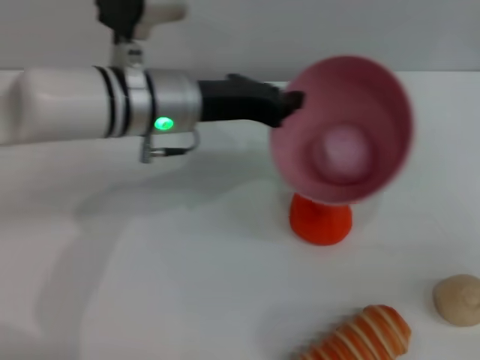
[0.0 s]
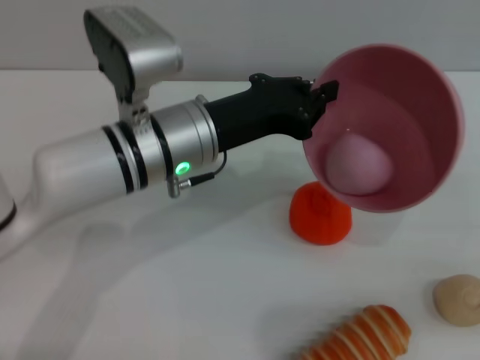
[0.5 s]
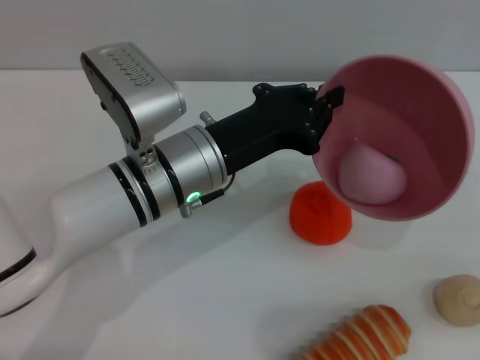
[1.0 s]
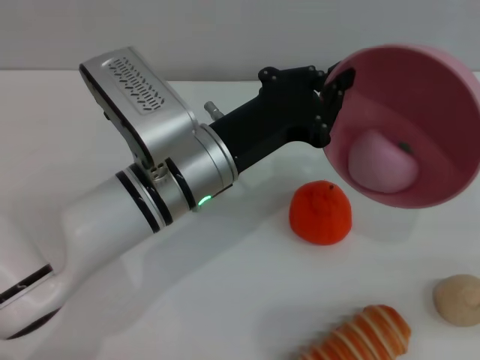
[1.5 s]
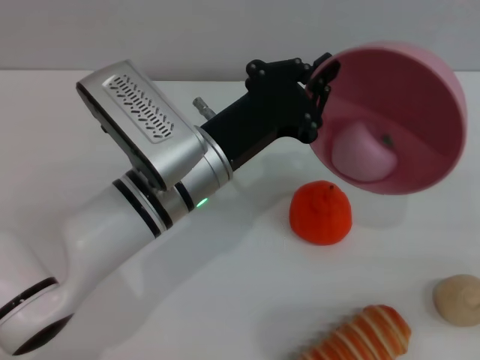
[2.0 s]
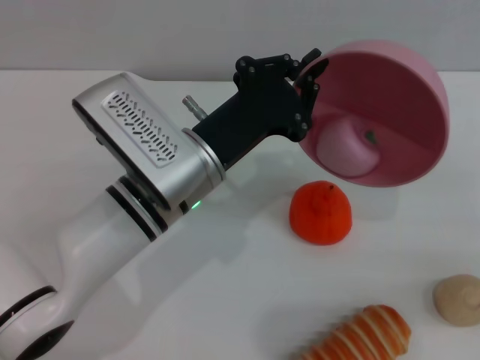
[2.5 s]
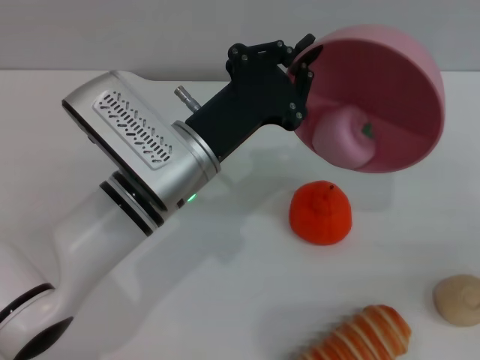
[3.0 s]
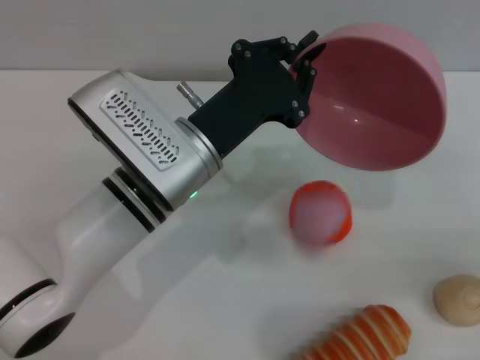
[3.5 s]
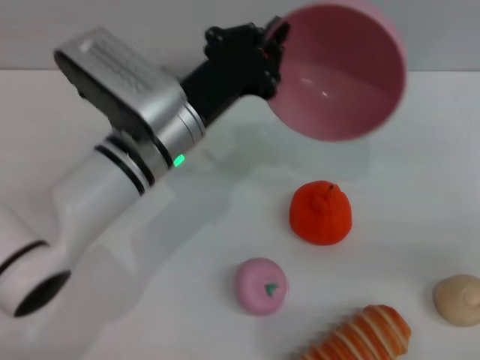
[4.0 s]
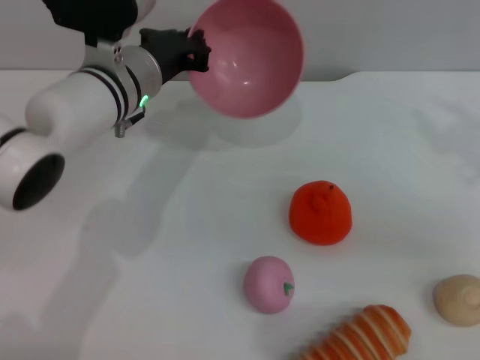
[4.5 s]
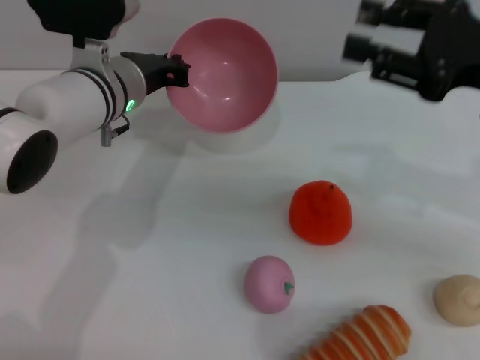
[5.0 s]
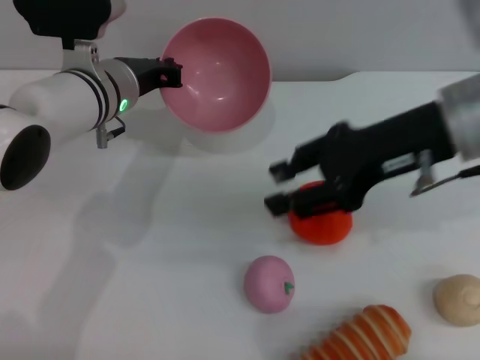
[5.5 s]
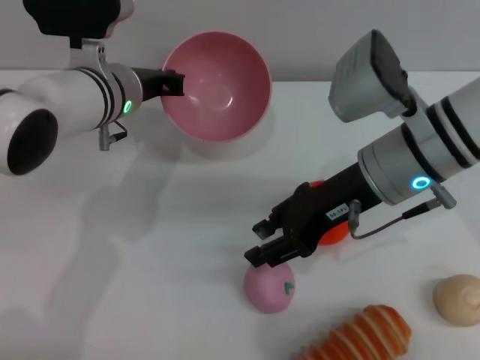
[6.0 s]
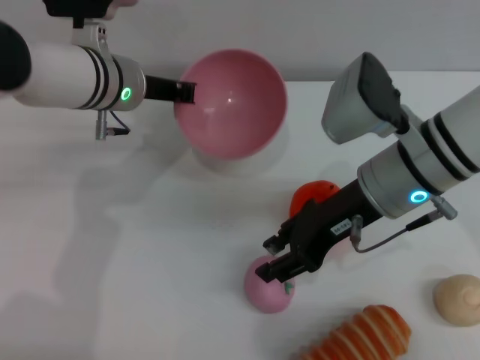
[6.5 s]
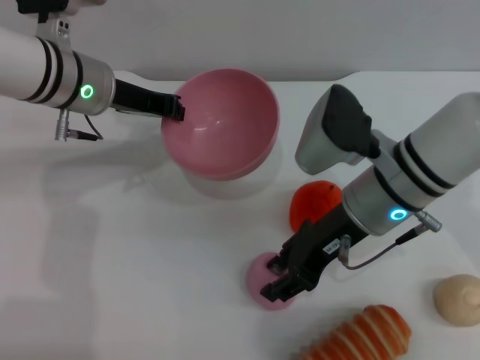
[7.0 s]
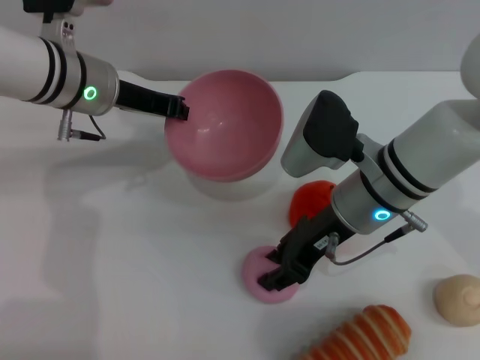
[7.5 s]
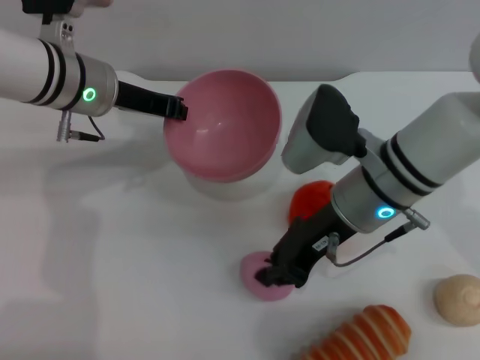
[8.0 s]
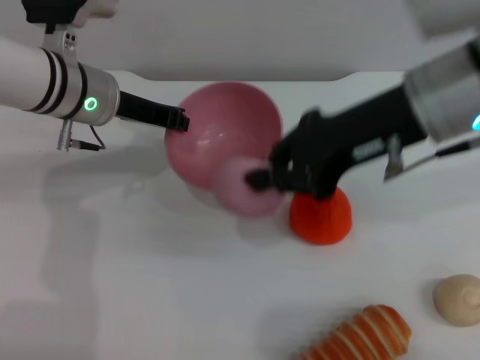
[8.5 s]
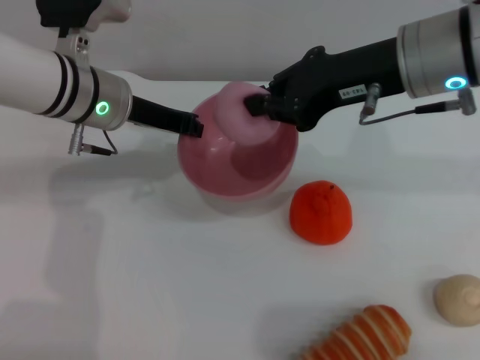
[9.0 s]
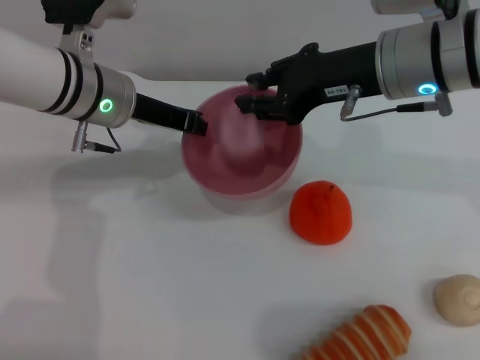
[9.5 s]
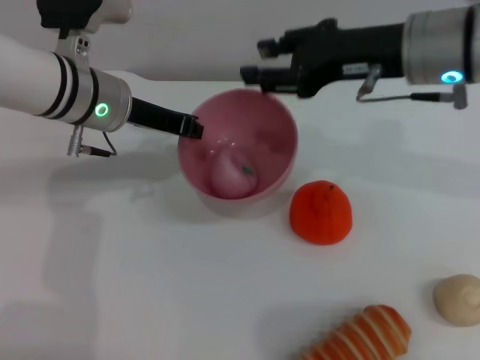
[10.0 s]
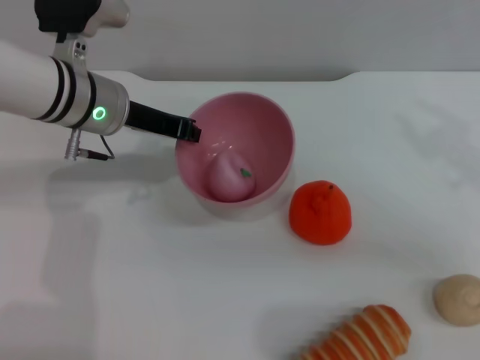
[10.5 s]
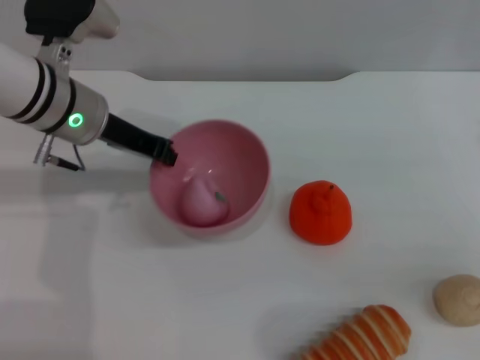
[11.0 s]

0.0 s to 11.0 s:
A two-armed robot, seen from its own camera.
Task of the whole recording: put the peach into the pink bowl and pour it out repeatedly.
Step, 0.0 to 4.0 s: Pour the peach out of bowl.
Step, 4.5 to 8.0 s: Pick up the peach with the right gripper.
Step, 8.5 to 9.5 s: Place the peach into the bowl.
0.0 to 2.0 s: The left gripper travels backward by roughly 5 cm.
2.0 to 3.5 s: The grippers make only small movements.
3.5 to 5.5 s: The right gripper is displaced to the left by roughly 20 cm; the left gripper travels forward and to the left by some 15 cm.
5.5 to 7.5 s: The right gripper is displaced downward and to the left by approximately 15 cm.
7.5 to 9.0 s: The right gripper shifts about 15 cm upward, and closes its fingers.
9.0 to 11.0 s: The right gripper travels to the right, downward and backward by roughly 25 cm, and opens up.

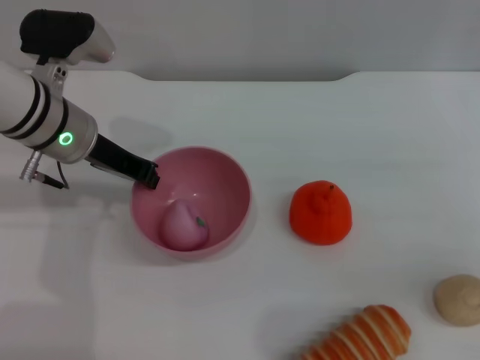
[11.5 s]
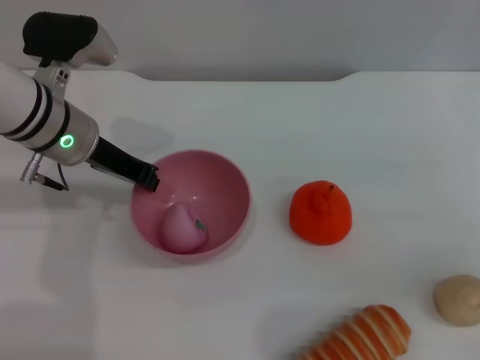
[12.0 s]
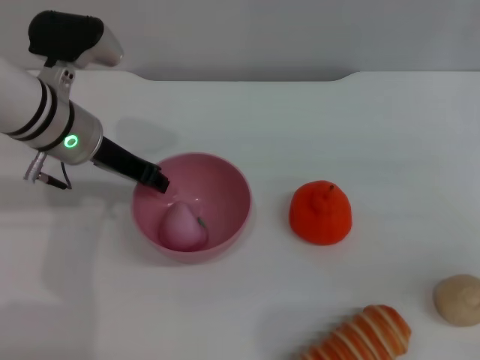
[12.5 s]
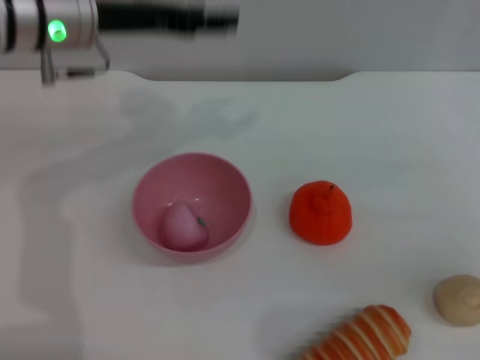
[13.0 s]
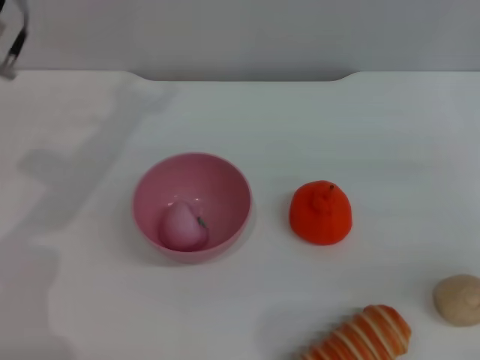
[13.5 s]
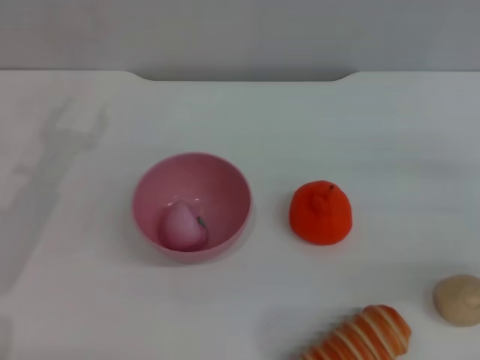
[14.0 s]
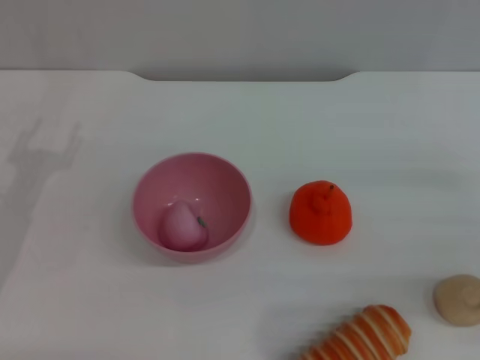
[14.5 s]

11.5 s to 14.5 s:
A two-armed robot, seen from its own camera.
Task of the whole recording: put the peach into the pink bowl and pour it out repeatedly.
11.5 to 13.0 s: The left gripper travels upward by some 10 cm, and opens up.
13.0 to 14.5 s: The left gripper moves to the left, downward and backward, roughly 25 cm.
